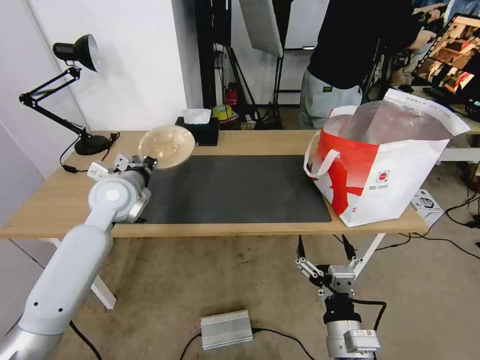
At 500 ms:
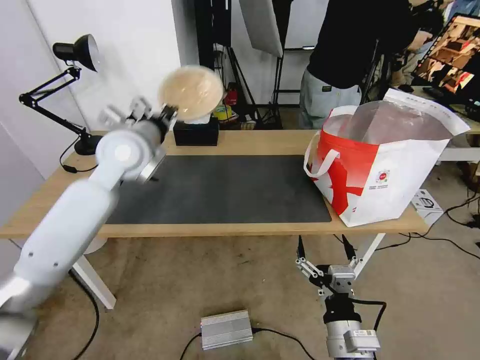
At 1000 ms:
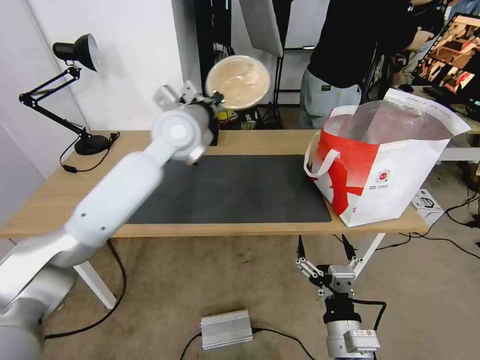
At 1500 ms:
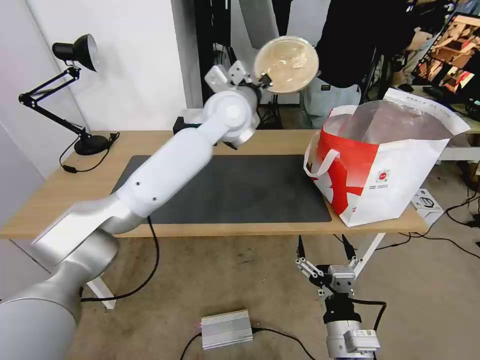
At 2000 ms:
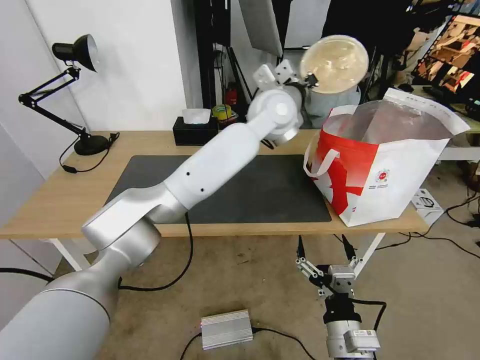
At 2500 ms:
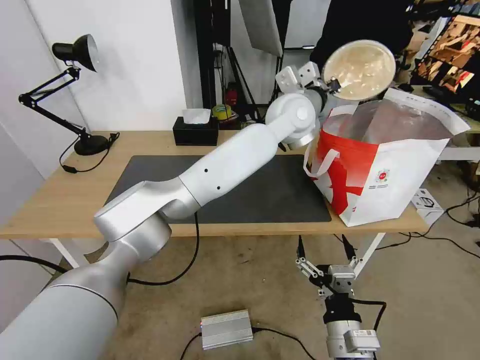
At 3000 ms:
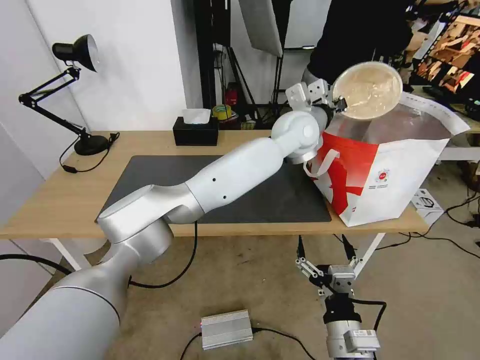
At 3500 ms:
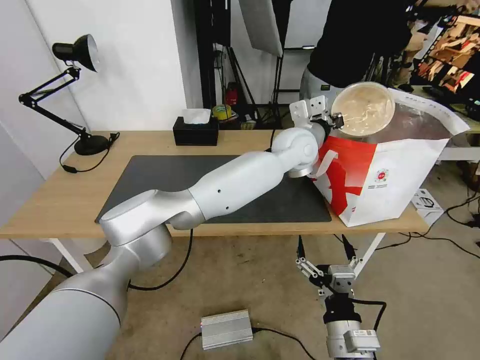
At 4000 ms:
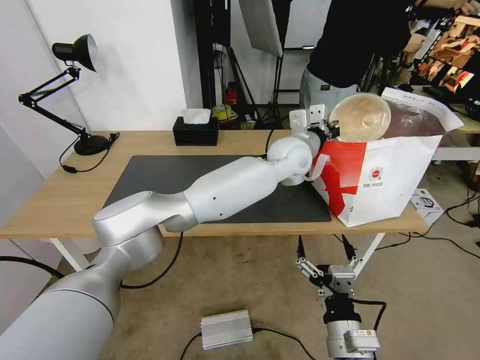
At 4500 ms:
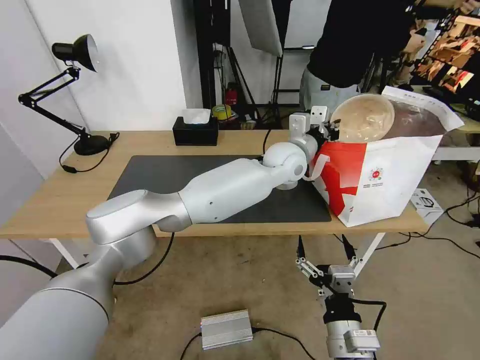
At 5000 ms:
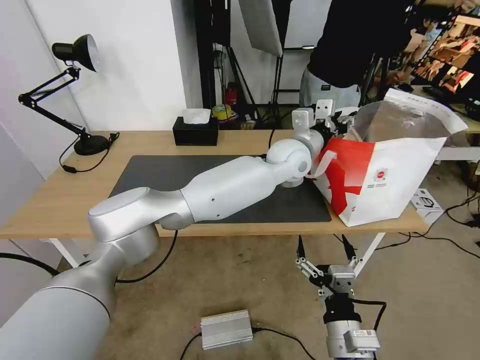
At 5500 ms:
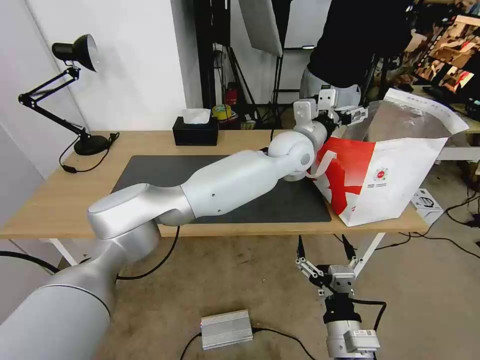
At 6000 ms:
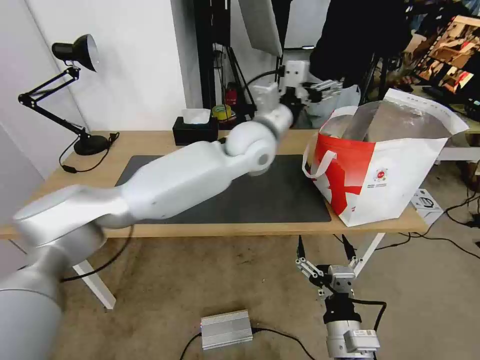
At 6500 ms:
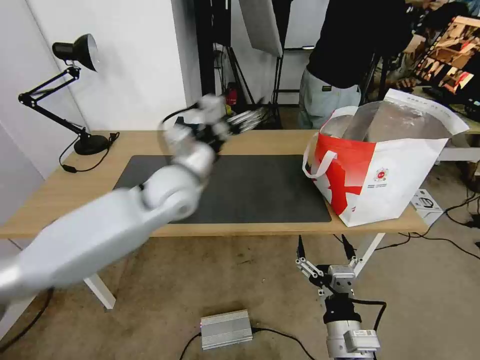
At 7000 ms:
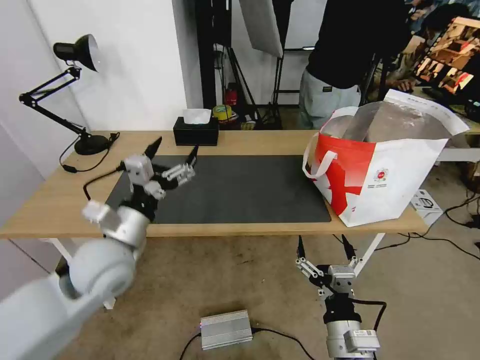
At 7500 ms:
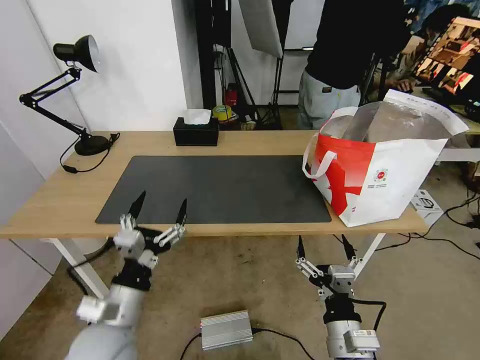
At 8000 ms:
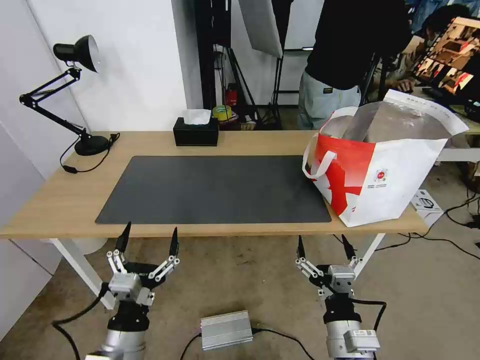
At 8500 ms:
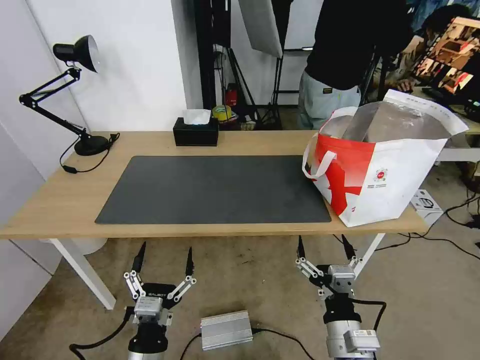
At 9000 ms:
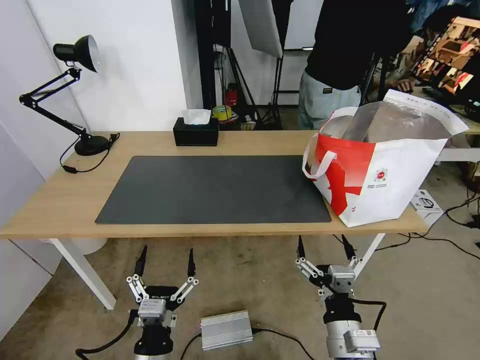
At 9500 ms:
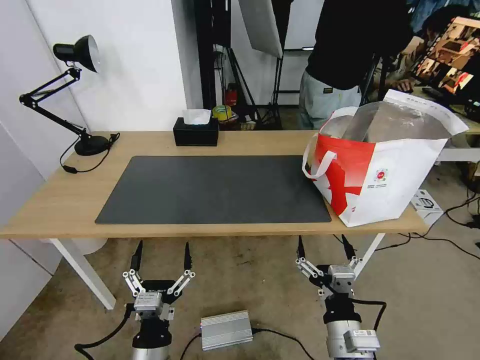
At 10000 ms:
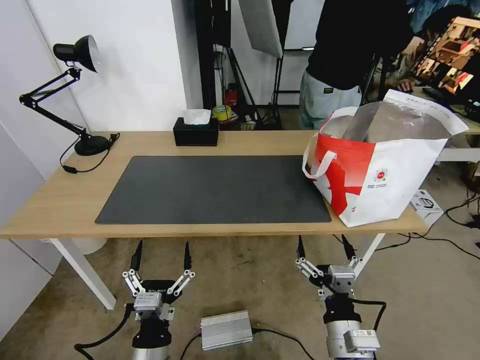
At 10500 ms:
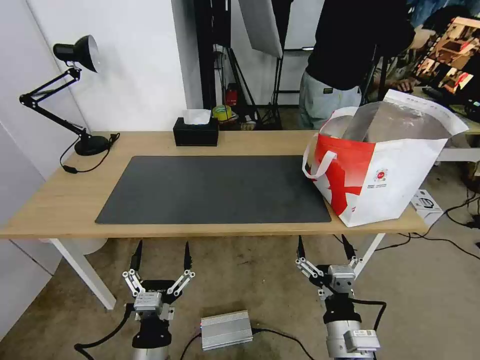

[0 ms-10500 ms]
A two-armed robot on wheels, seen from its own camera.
Task of the whole recording: Pick up the trash from the table and place it into the takeout bag.
0 ms to 2000 ms: The left gripper shifts about 35 cm to the right and upward.
2000 ms to 4000 ms: The left gripper travels downward and to the right by approximately 10 cm.
4000 ms to 6500 ms: The left gripper moves to the left and backward, approximately 25 cm, and opens up.
6500 ms to 8500 ms: The left gripper shifts roughly 40 cm backward and downward.
8500 ms to 10500 ms: The grippers move only a little.
